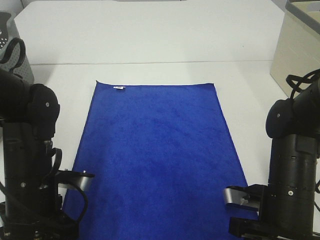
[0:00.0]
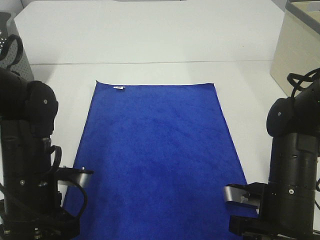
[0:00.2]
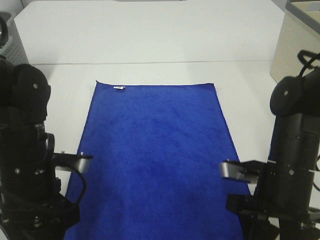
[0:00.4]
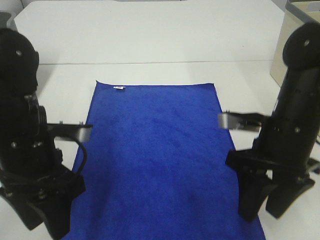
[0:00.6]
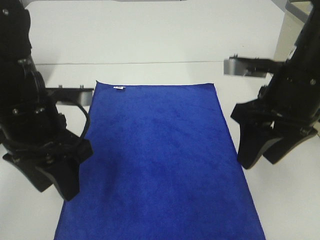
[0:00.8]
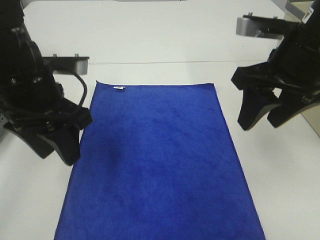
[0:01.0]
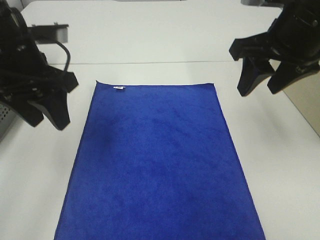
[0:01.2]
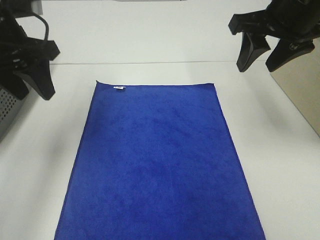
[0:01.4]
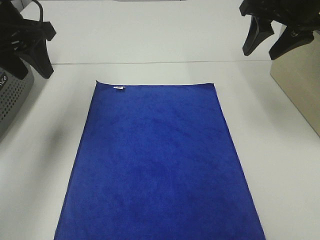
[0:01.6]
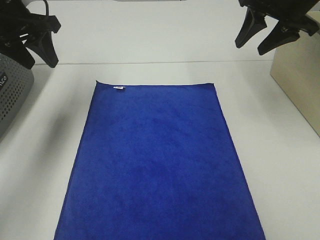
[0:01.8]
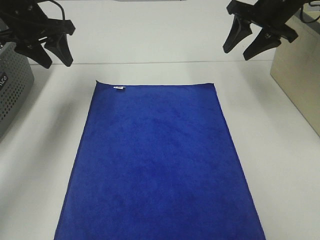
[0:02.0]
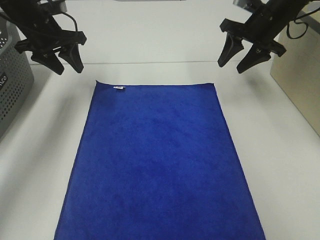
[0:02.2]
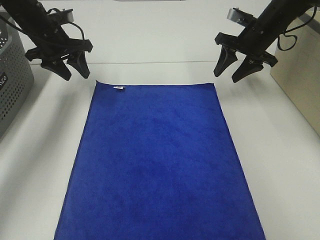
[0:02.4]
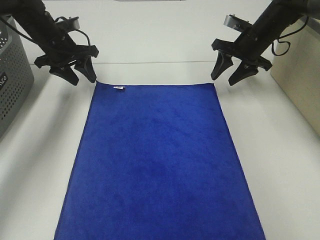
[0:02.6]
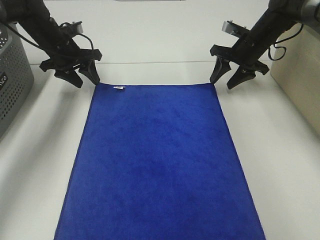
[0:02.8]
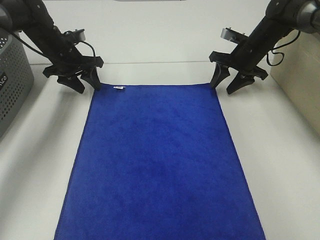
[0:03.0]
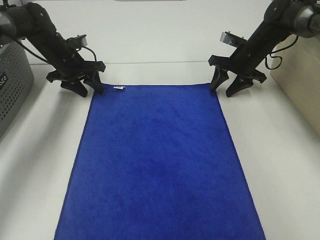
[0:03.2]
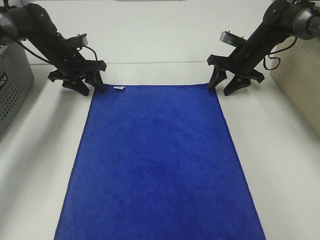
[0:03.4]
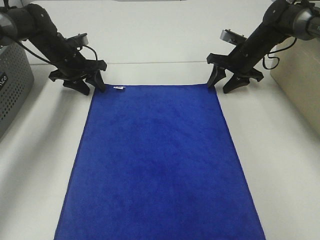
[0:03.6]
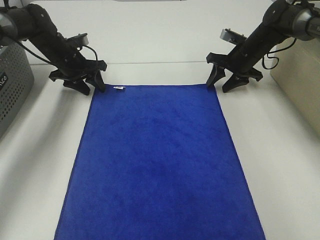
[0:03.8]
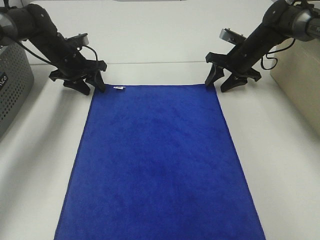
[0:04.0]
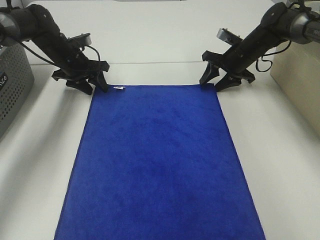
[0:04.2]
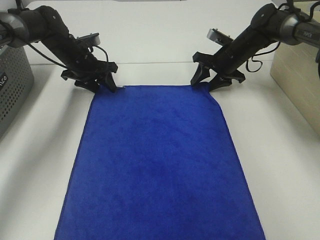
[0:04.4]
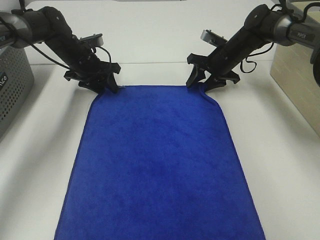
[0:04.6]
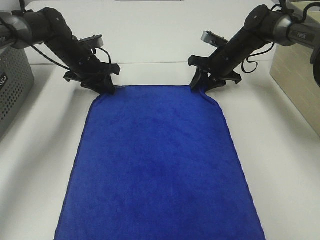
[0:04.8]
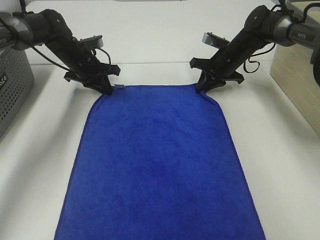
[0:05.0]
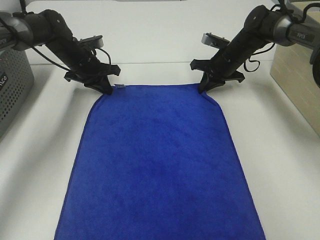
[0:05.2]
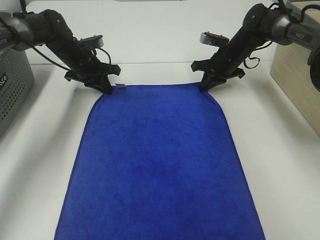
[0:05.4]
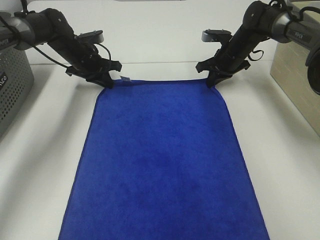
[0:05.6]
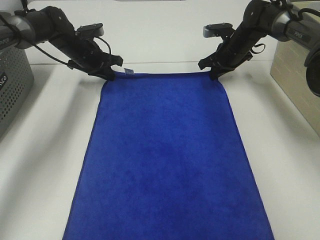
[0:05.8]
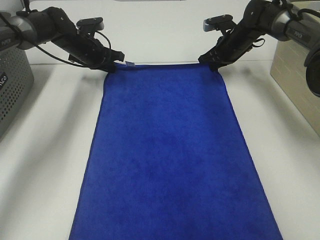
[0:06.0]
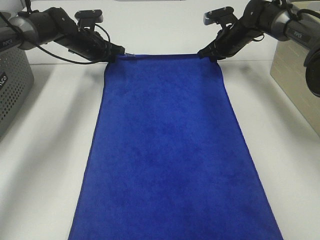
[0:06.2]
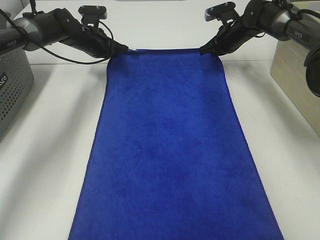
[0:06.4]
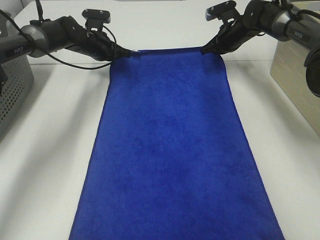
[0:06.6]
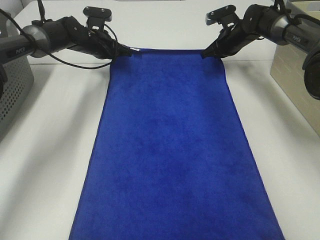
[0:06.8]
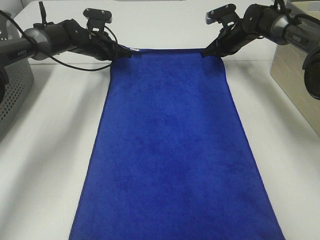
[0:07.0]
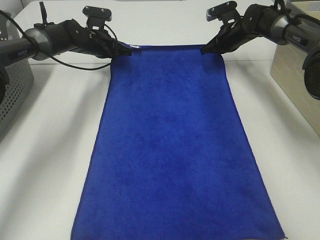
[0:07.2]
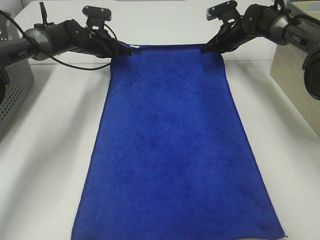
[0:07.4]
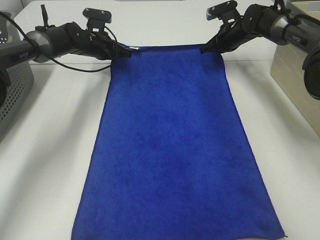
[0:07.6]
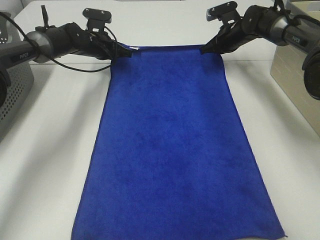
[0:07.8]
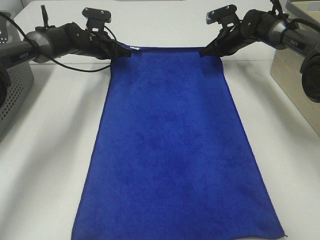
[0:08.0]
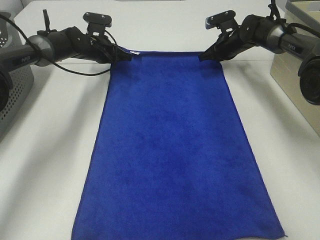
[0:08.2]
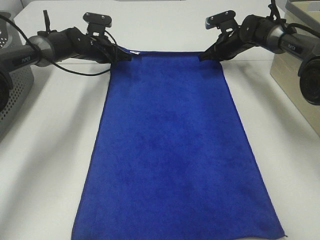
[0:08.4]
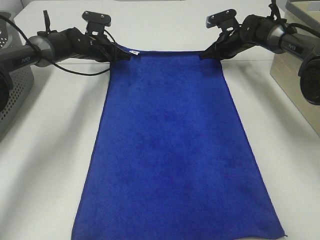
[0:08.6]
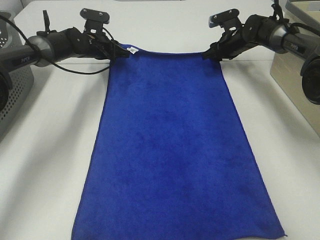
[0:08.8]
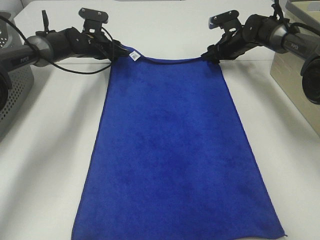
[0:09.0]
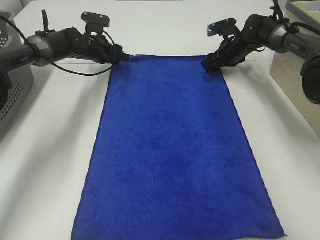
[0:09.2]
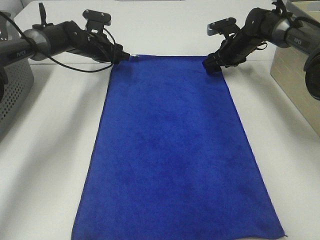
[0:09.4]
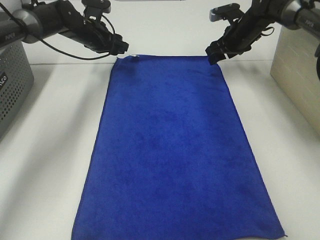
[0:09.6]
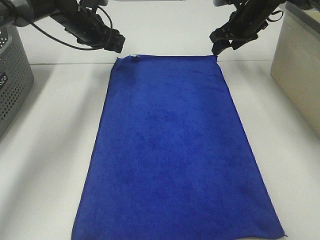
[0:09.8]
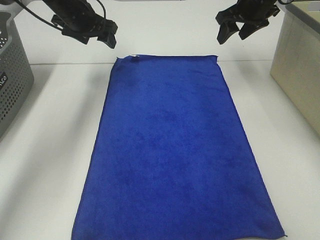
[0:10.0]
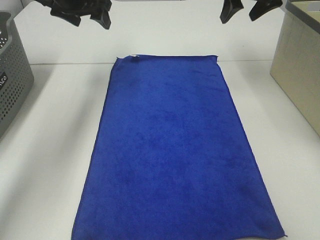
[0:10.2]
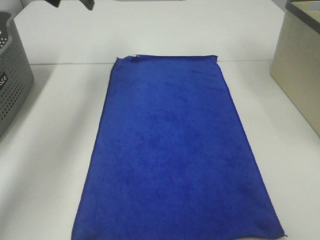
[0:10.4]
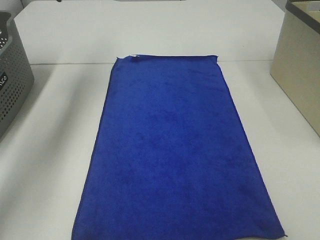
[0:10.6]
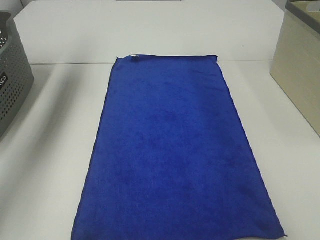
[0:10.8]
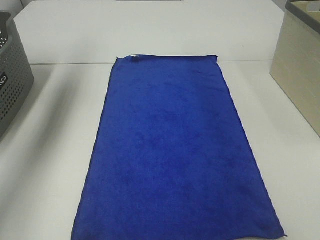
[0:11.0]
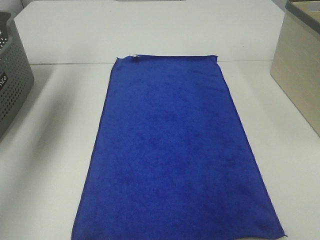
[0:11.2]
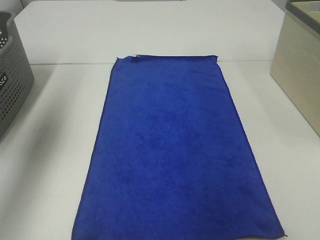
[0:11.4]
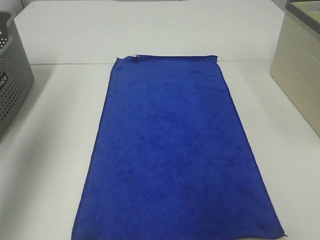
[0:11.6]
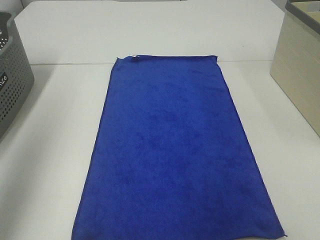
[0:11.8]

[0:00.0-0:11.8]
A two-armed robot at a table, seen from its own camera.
Task of the whole recording: Remove the towel and place it.
Step, 0:00.0 to 0:02.8: Left hand:adjust the blue towel.
Step, 0:00.0 to 0:02.8: Right hand:adjust the blue towel.
0:00.0 to 0:01.4: The two grippers go approximately 25 cm upward and forward.
0:01.4 to 0:03.0: Both grippers move forward and downward, roughly 25 cm.
0:03.0 to 0:04.4: The grippers stay close to where they were, moving slightly.
0:04.4 to 0:06.0: The left gripper closes up, while the right gripper closes.
0:07.4 to 0:08.8: The right gripper opens, while the left gripper opens its fingers.
0:08.8 to 0:10.4: The two grippers go approximately 25 cm upward and backward. The left gripper opens up.
0:10.4 to 0:11.8: The left gripper travels backward by about 30 cm.

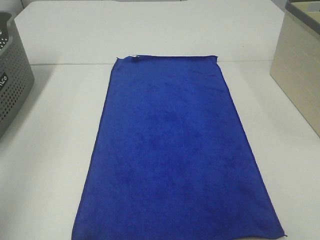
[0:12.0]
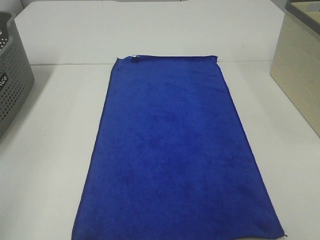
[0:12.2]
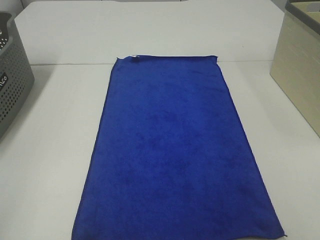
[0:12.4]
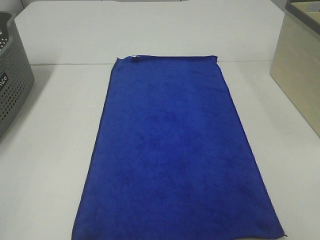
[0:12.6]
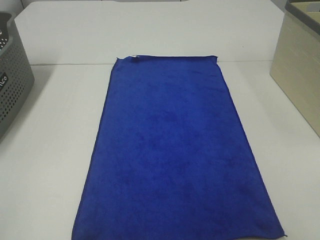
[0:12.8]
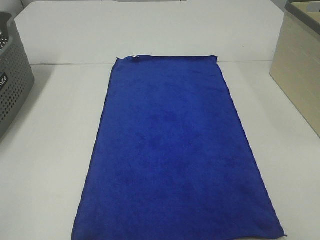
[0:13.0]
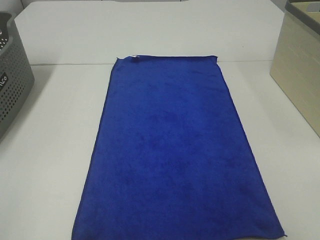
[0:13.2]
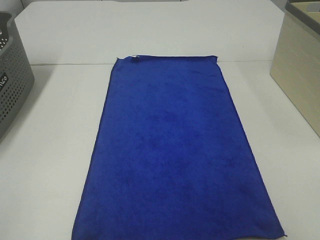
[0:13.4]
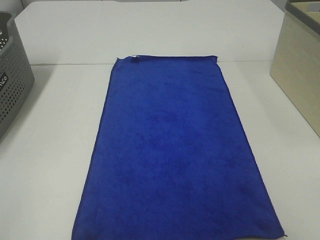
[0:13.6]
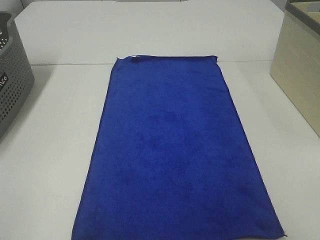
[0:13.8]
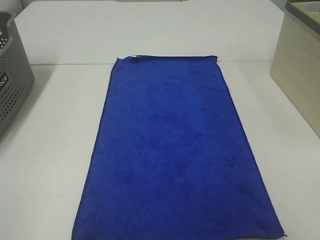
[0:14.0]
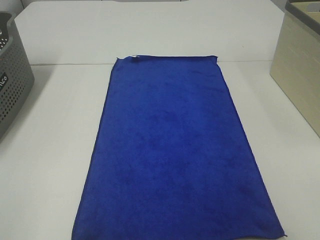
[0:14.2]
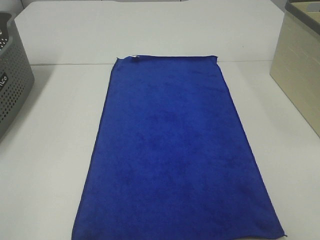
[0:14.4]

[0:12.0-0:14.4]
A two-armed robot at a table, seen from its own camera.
Task of the whole recording: Remove the towel and place it.
0:13.2 to 0:14.4: The two grippers keep their place.

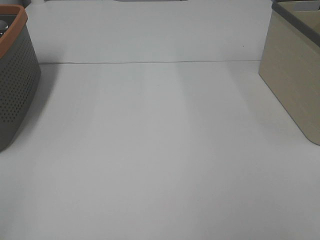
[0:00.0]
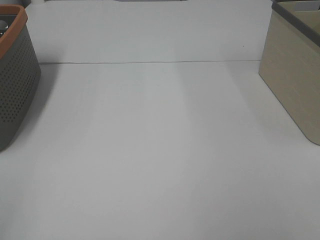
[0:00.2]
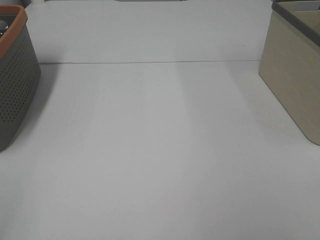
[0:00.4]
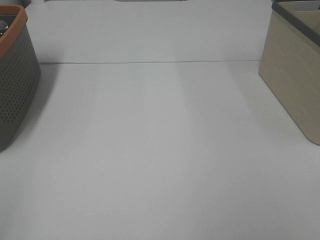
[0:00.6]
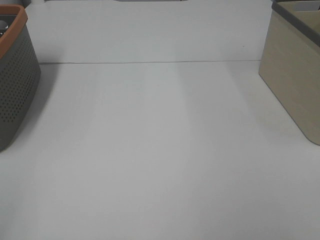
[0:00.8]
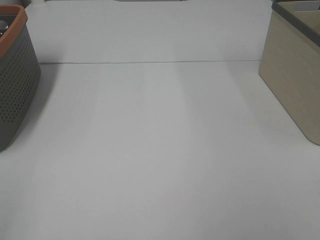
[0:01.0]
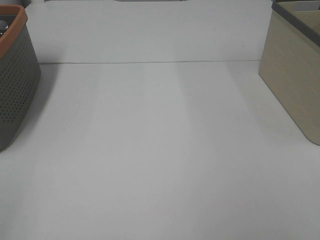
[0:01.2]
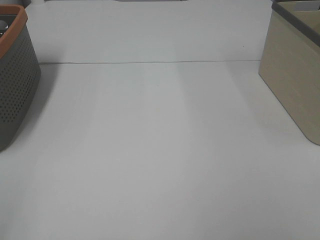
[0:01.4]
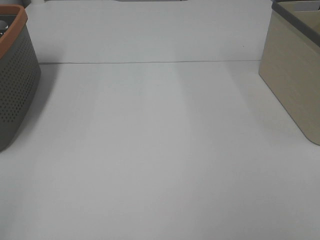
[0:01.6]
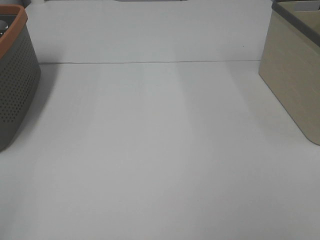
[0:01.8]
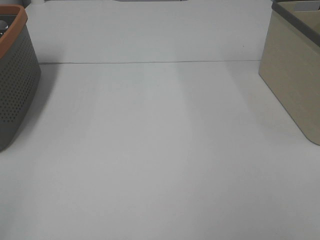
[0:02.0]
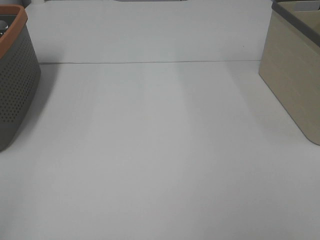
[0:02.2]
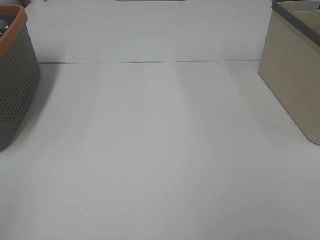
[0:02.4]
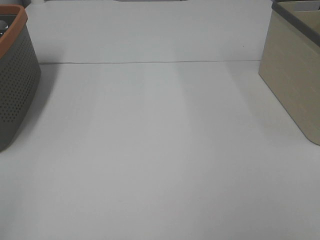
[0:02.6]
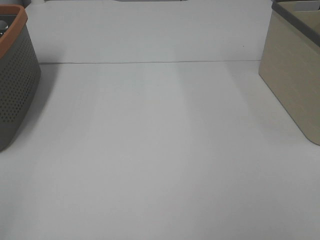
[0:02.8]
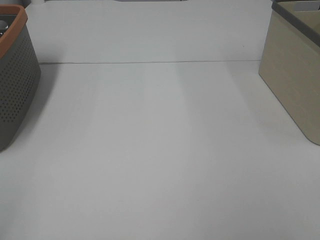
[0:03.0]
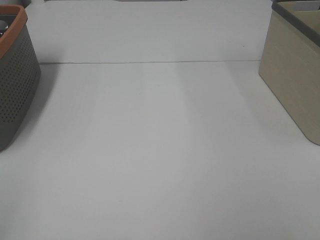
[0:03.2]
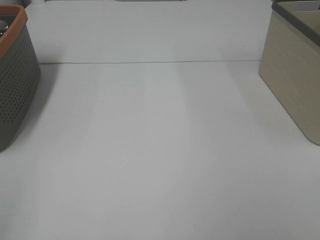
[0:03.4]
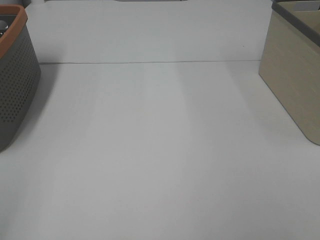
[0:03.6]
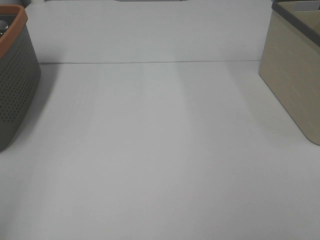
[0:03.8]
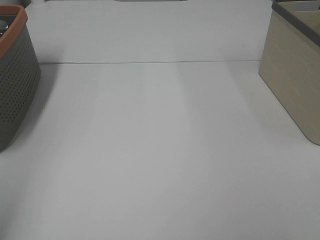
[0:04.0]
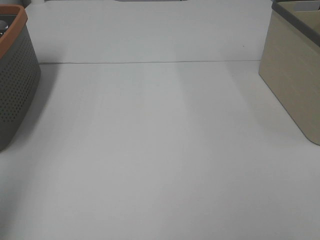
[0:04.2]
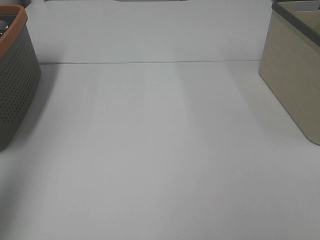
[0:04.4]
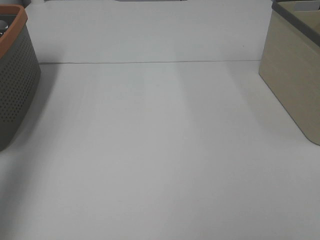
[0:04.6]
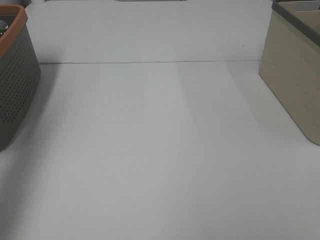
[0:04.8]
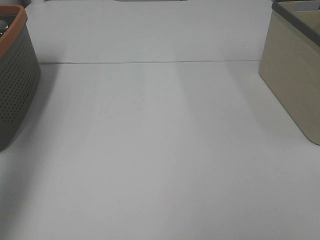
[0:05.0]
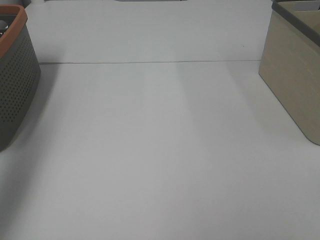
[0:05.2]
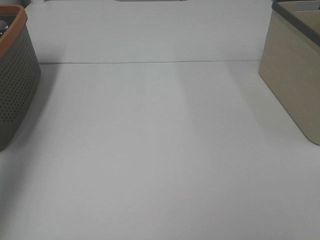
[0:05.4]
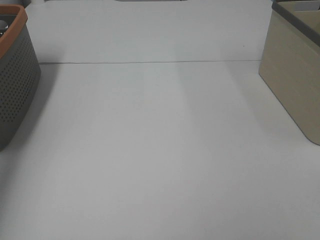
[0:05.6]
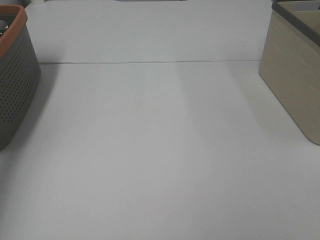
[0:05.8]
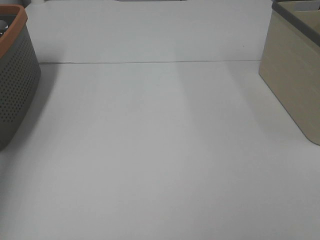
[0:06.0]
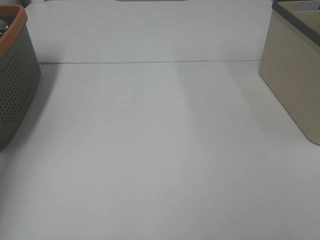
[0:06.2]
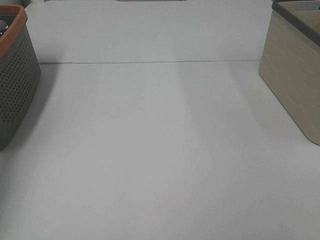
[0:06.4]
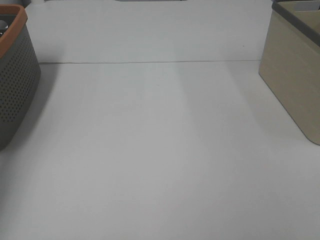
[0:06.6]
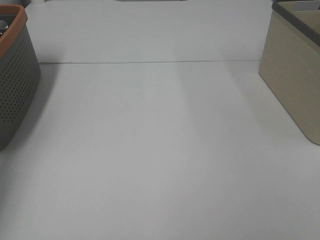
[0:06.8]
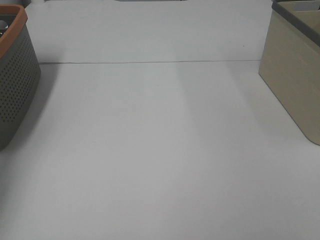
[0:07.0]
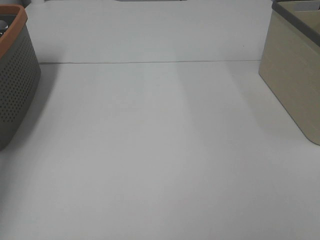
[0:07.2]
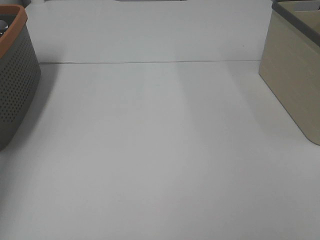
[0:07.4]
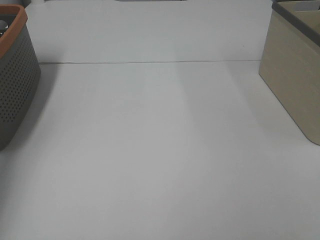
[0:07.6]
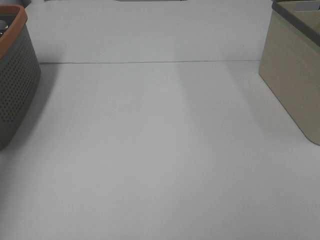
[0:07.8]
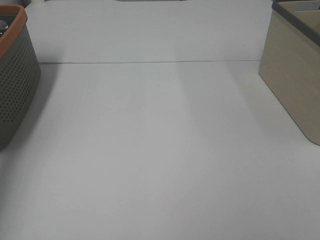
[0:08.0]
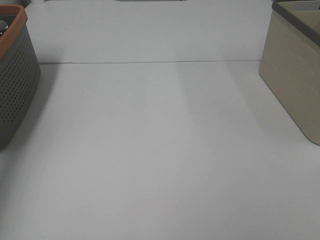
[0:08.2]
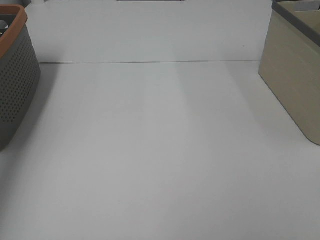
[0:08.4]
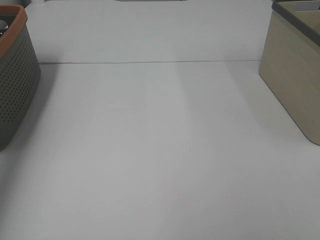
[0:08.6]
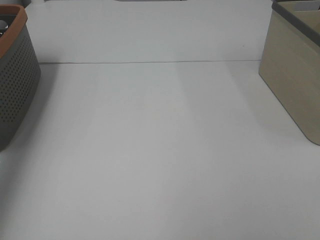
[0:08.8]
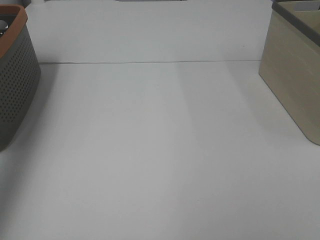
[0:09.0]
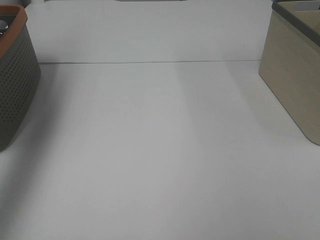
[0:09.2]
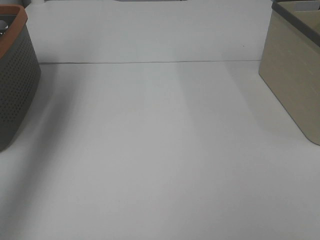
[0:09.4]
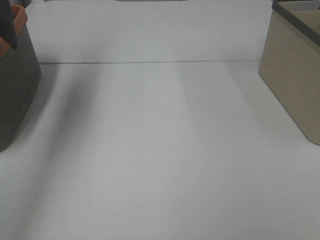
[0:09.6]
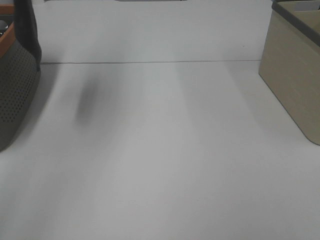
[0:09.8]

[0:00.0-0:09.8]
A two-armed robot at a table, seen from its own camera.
Task of the whole recording: Remove the towel and place it.
0:00.0 to 0:02.8: The two grippers keep their place.
0:02.8 to 0:04.2: The left gripper shifts approximately 15 cm forward and upward.
0:04.2 to 0:05.6: The left gripper heads forward and downward, covering some 25 cm.
0:08.4 to 0:09.8: The left gripper moves upward and to the right, some 25 cm.
